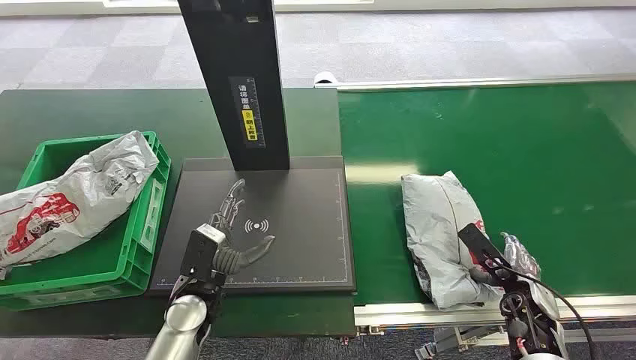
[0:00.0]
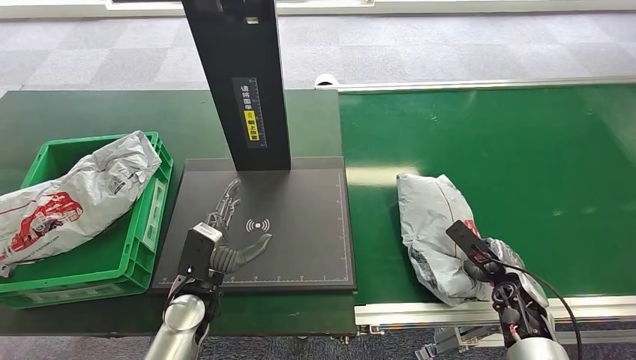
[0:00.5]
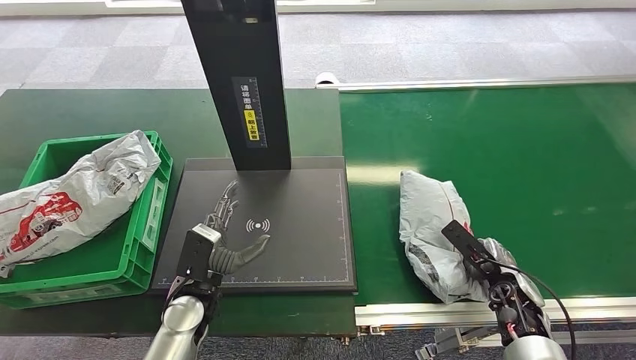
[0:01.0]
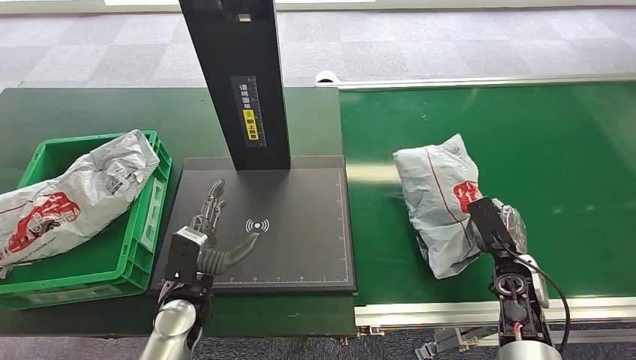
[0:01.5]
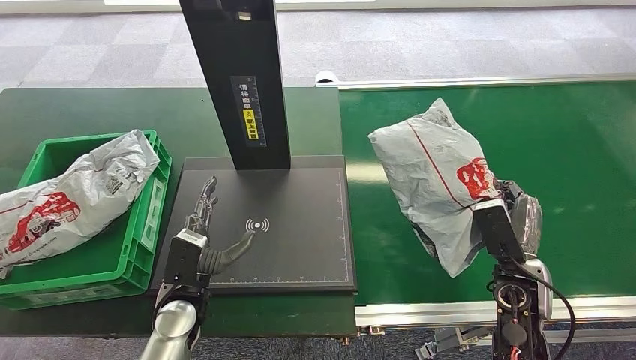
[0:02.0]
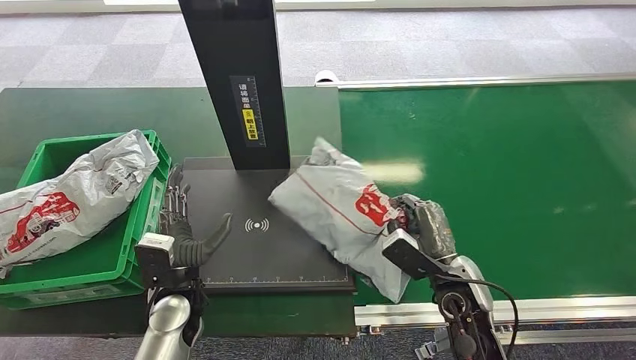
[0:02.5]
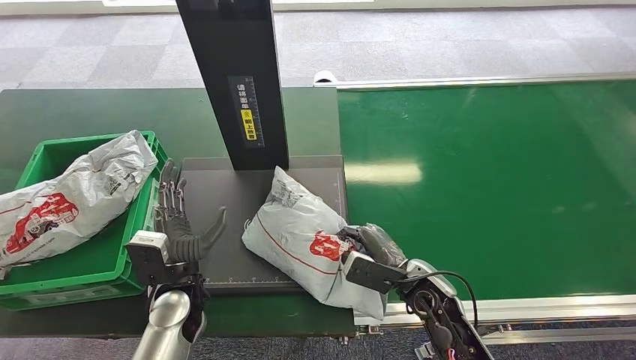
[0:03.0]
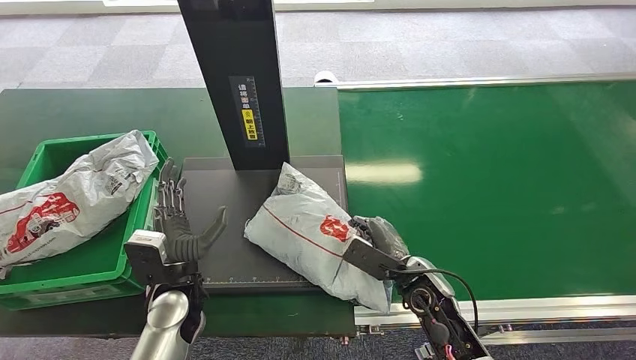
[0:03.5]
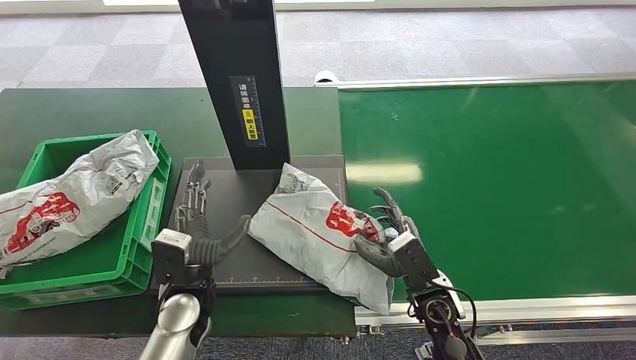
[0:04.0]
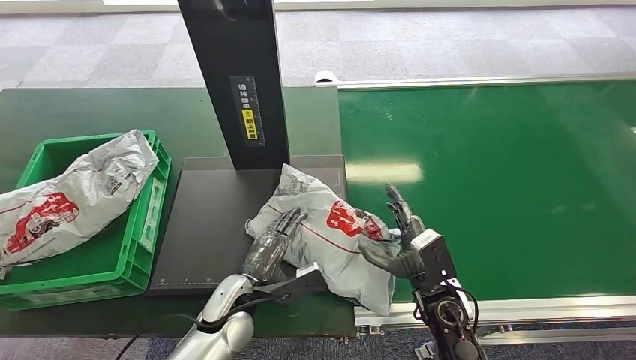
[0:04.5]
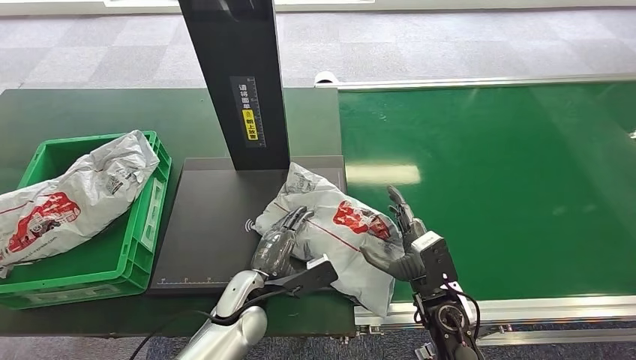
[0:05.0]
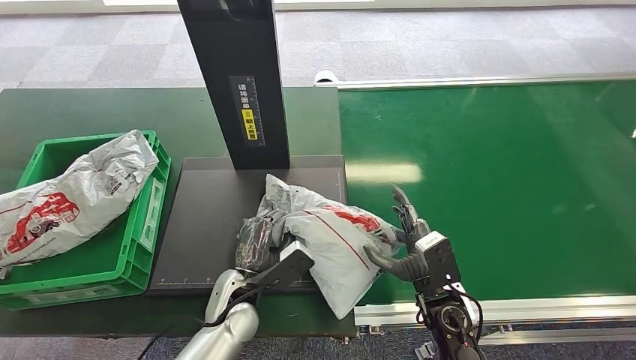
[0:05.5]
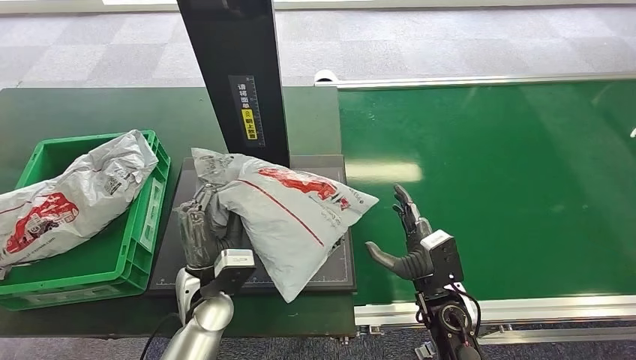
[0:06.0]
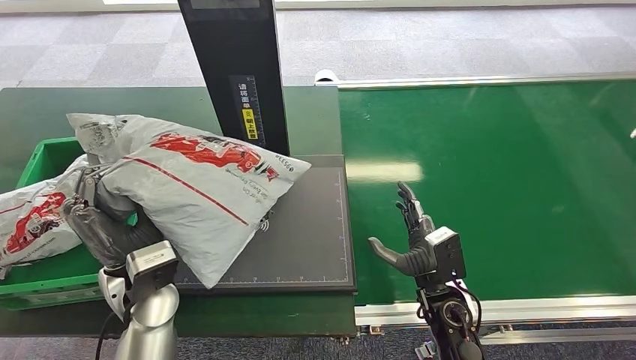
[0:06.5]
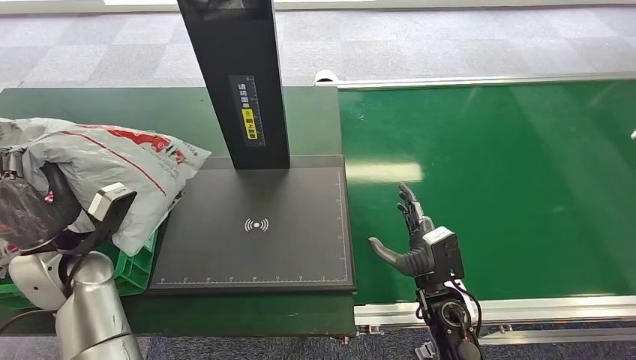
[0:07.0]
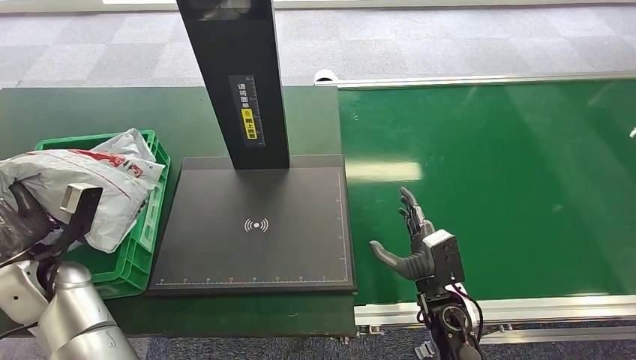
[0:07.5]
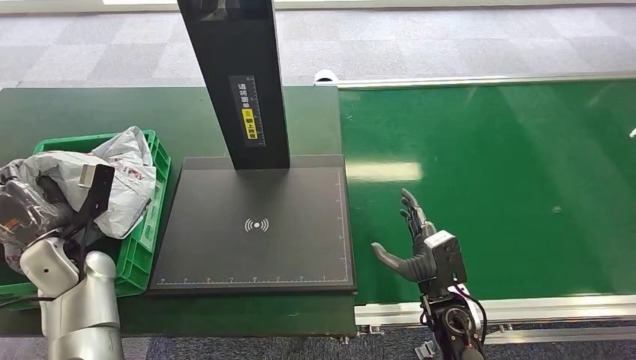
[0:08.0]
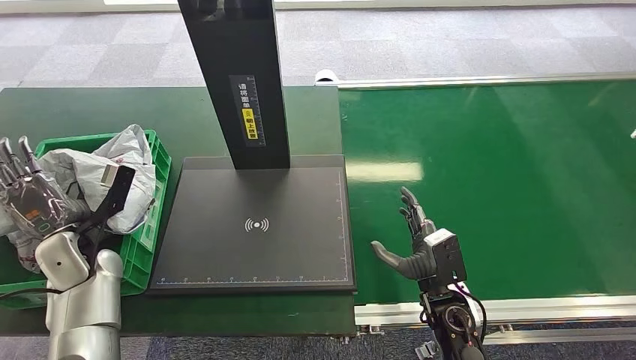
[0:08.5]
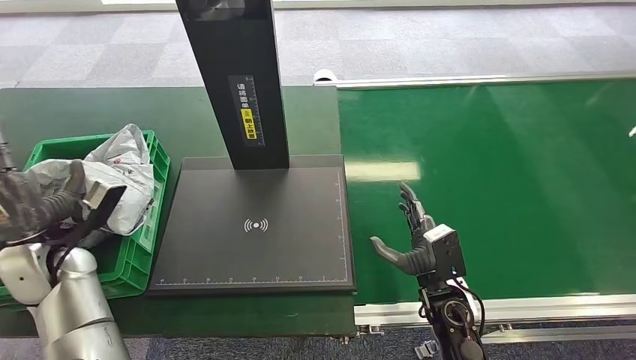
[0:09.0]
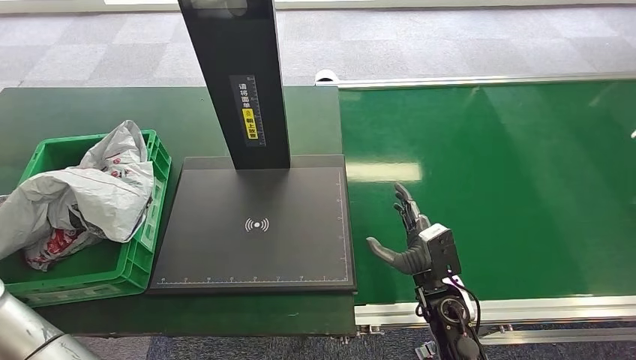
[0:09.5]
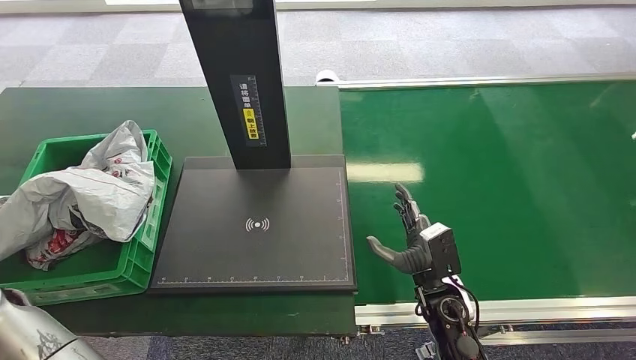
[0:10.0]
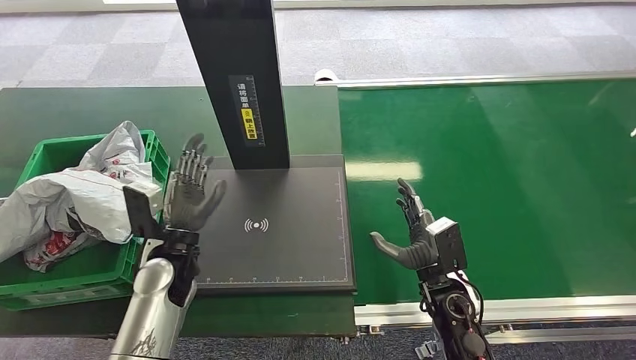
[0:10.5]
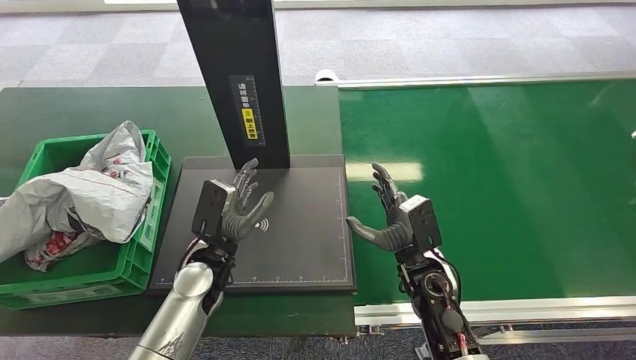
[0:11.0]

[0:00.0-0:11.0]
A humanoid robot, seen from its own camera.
Step, 0:00.0 to 0:01.5: Pick up the package from the conveyor belt.
Step, 0:02.0 to 0:04.0: Place the package onto the inbound machine.
Step, 0:05.0 to 0:06.5: Pick up the package from the inbound machine.
Step, 0:07.5 to 0:10.5: Place the package into the parcel locker.
0:03.5 to 0:05.5: The left hand heads to the right, covering approximately 10 cm.
0:07.5 to 0:09.0: The hands make only small movements.
0:09.0 to 0:11.0: The right hand shifts by about 5 cm, while the left hand goes roughly 25 cm to the right.

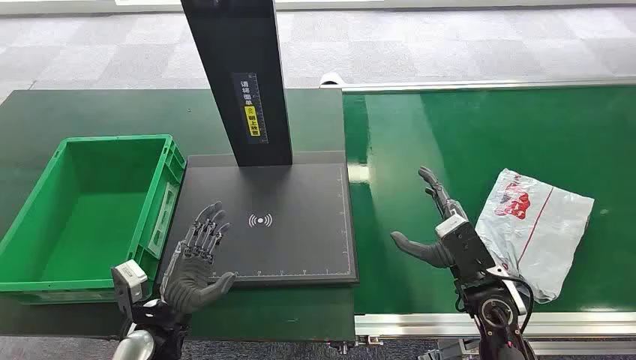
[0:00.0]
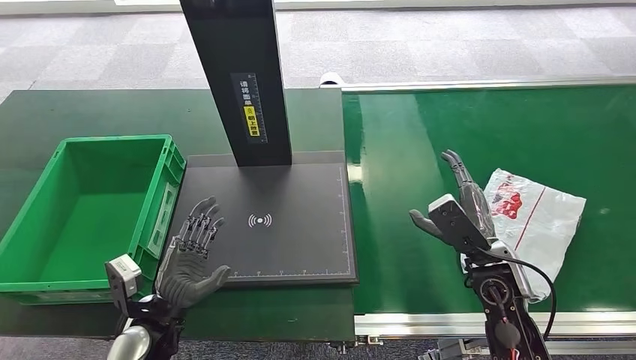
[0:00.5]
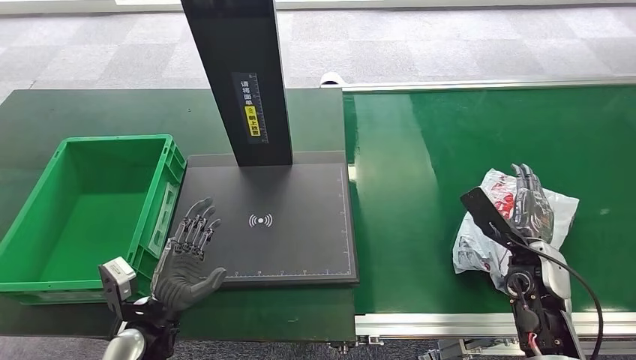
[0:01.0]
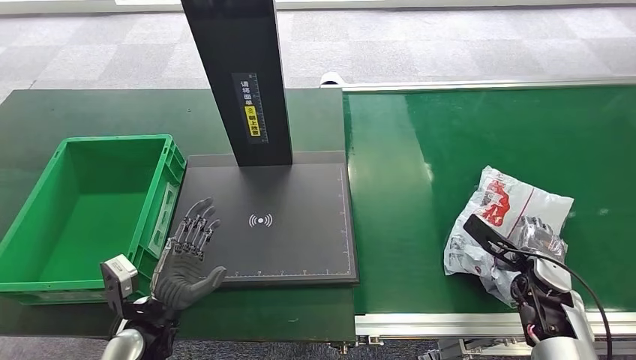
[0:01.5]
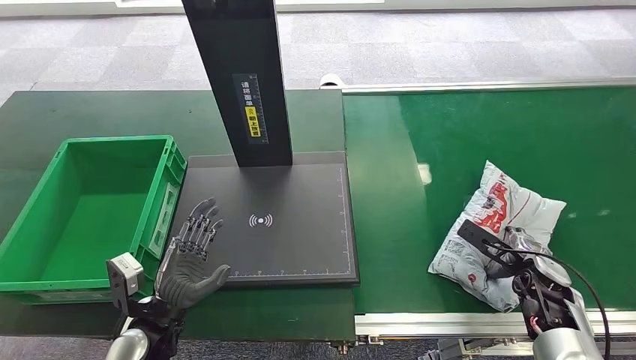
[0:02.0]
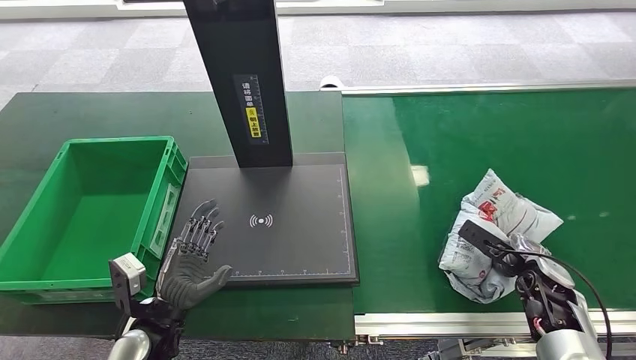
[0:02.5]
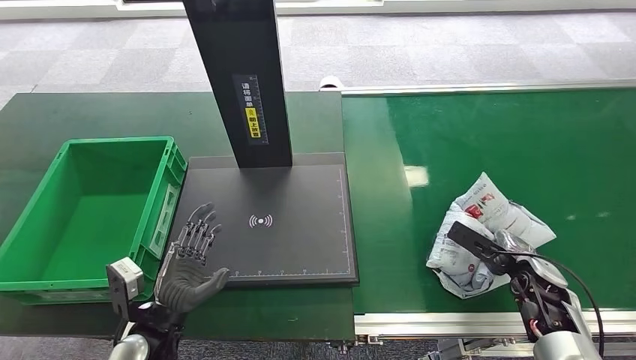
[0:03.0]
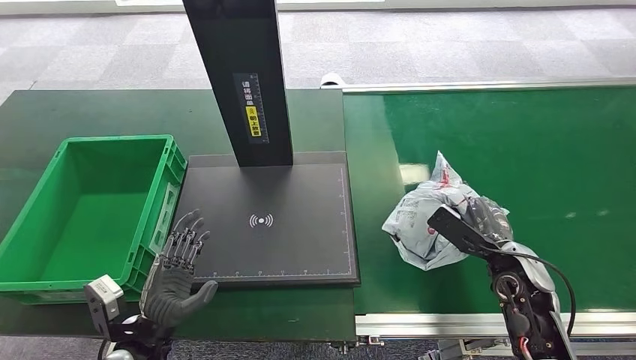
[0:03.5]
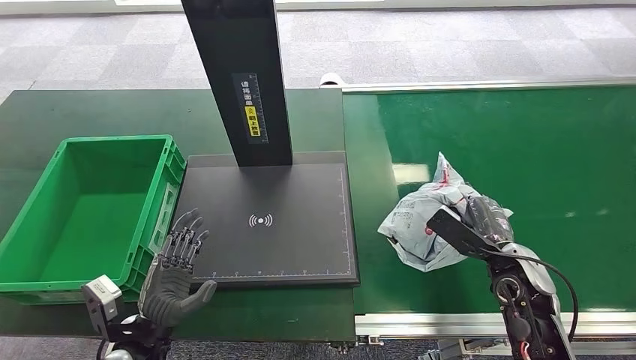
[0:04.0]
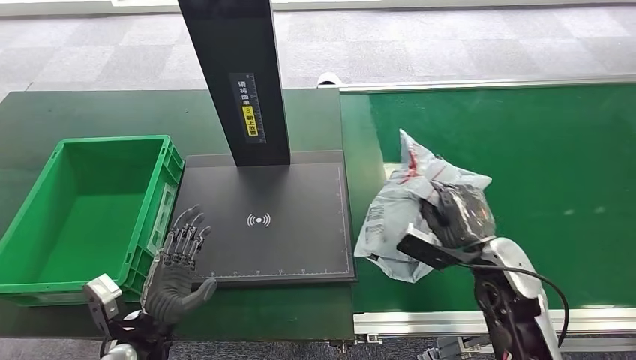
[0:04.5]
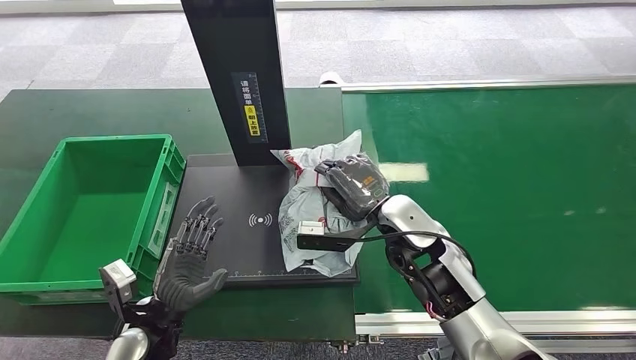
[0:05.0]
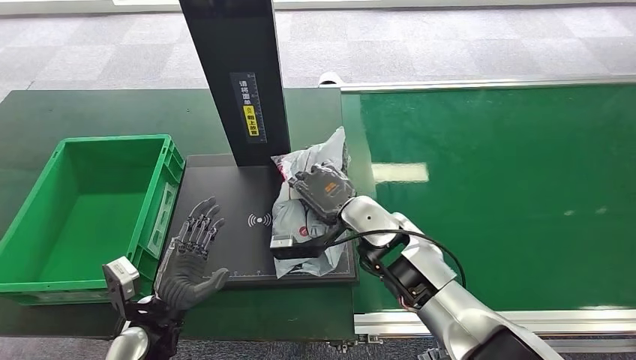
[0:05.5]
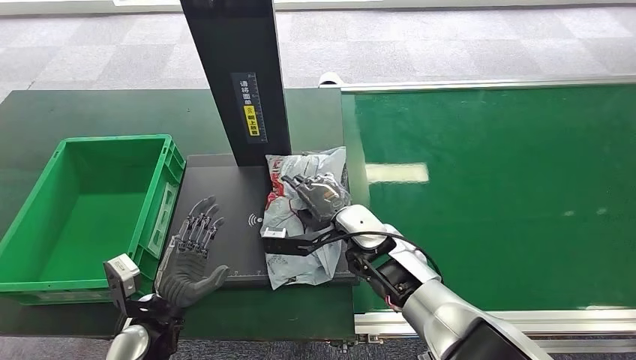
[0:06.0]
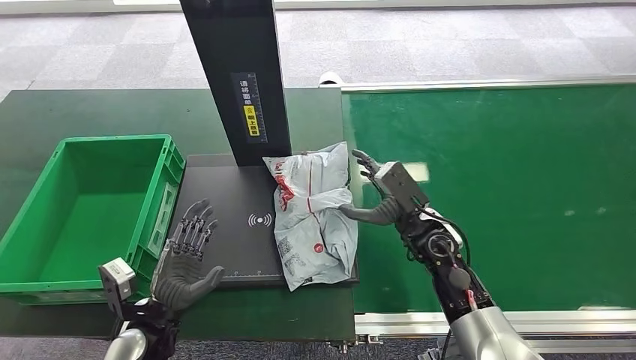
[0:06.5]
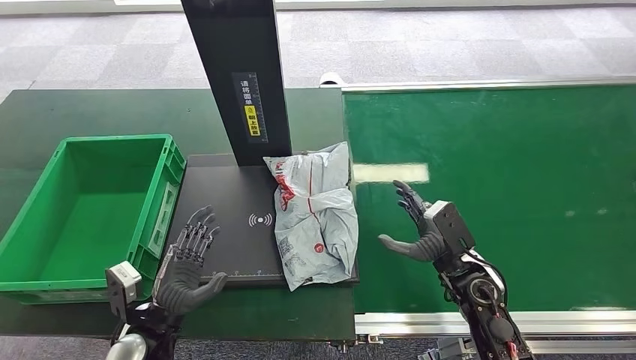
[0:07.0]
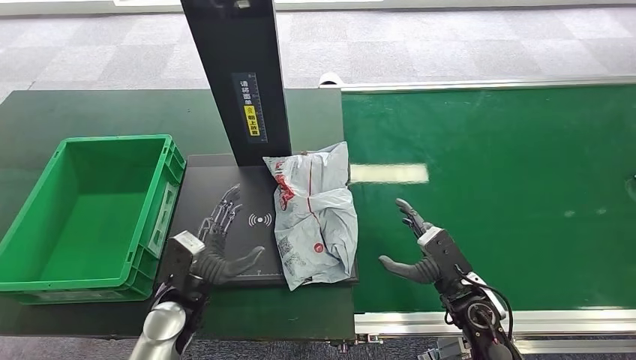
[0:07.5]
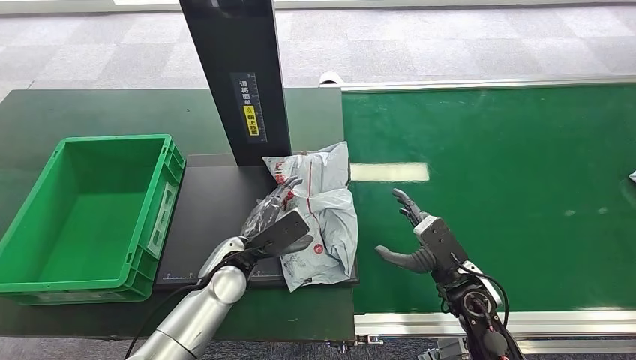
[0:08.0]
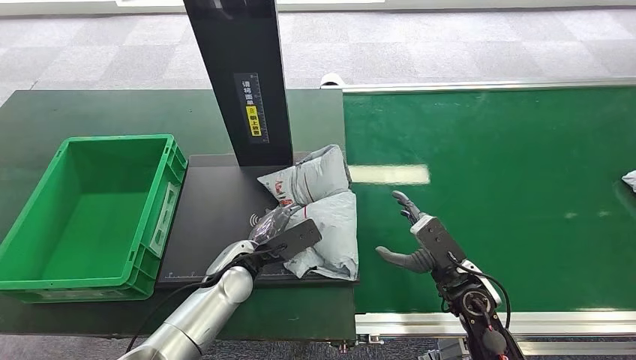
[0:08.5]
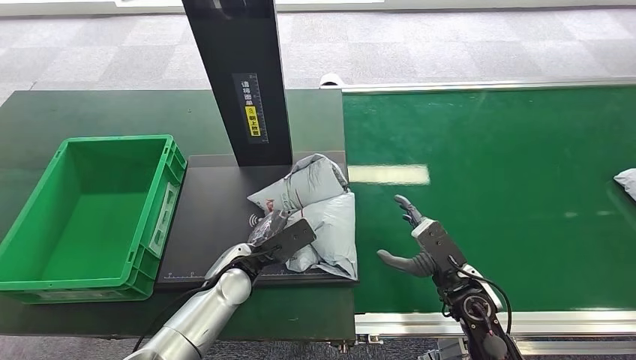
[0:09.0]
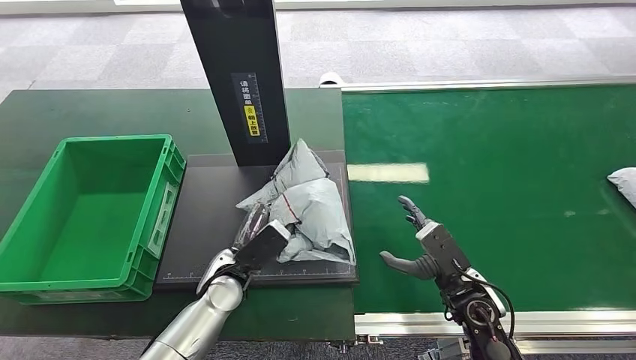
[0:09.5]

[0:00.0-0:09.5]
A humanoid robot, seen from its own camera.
Step, 0:00.0 to 0:03.5: Pick up the package from the conveyor belt.
Step, 0:04.0 to 0:06.5: Place the package onto the inbound machine.
0:02.0 to 0:04.0: The right hand travels to the left by some 5 cm.
0:05.5 to 0:07.5: The right hand is displaced to the right, downward and backward by roughly 20 cm.
0:07.5 to 0:09.5: The left hand heads to the right, covering roughly 5 cm.
